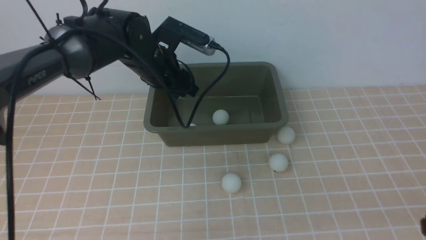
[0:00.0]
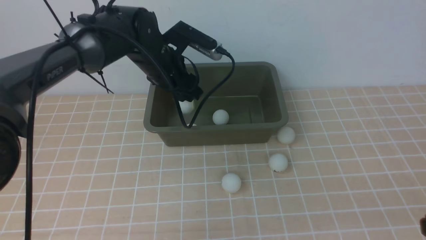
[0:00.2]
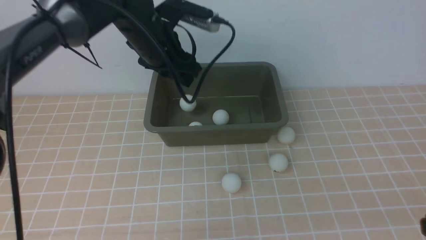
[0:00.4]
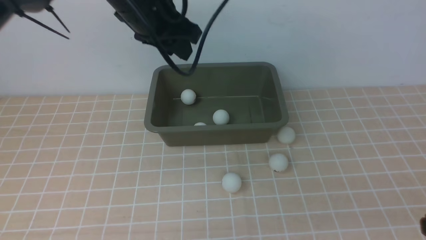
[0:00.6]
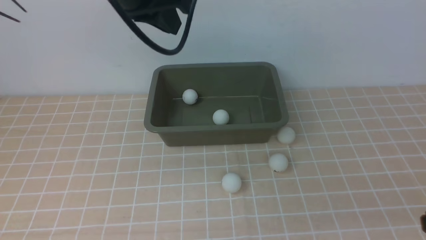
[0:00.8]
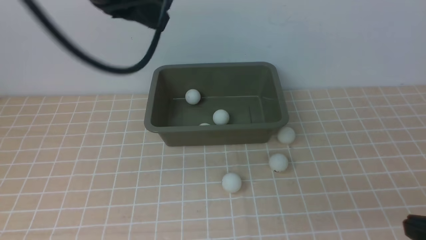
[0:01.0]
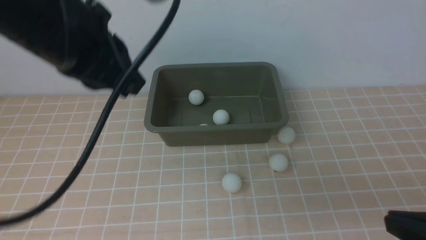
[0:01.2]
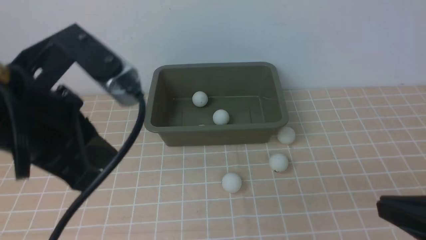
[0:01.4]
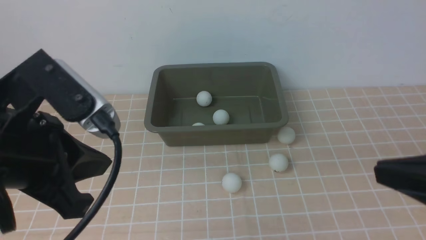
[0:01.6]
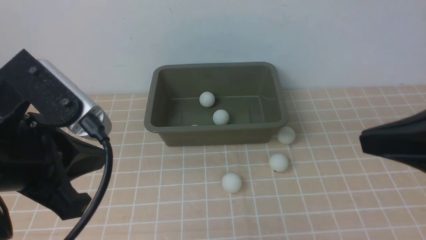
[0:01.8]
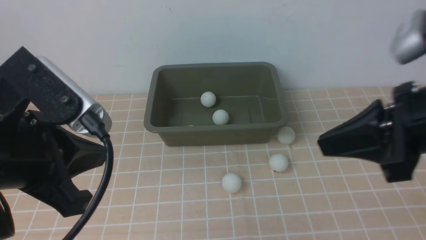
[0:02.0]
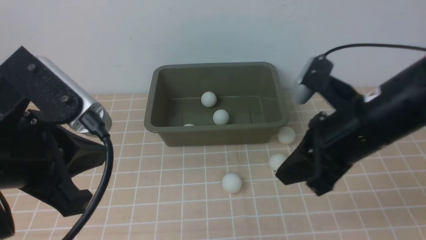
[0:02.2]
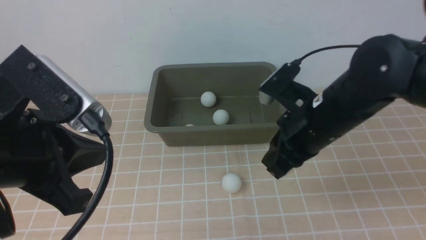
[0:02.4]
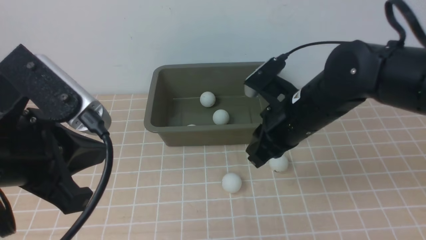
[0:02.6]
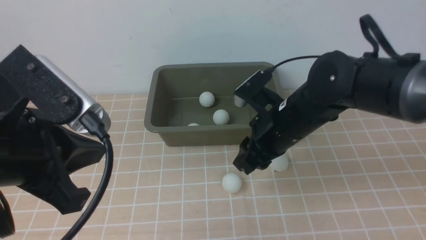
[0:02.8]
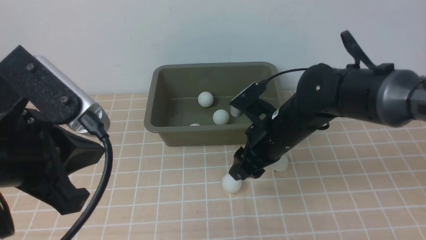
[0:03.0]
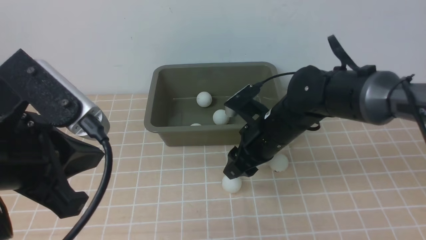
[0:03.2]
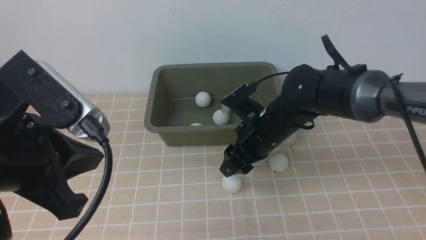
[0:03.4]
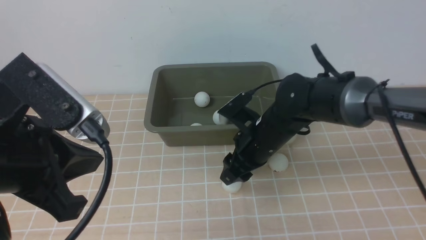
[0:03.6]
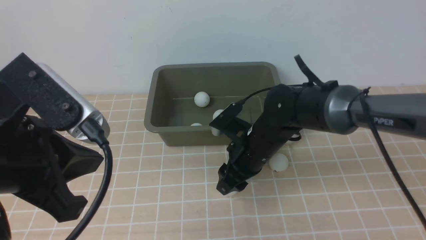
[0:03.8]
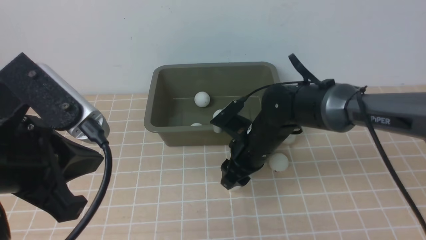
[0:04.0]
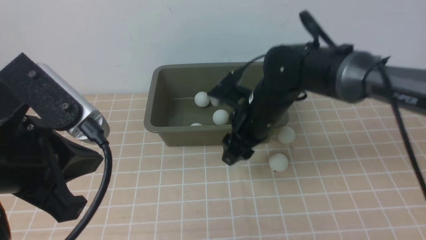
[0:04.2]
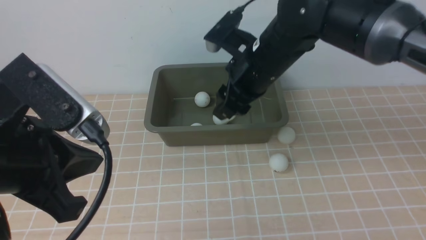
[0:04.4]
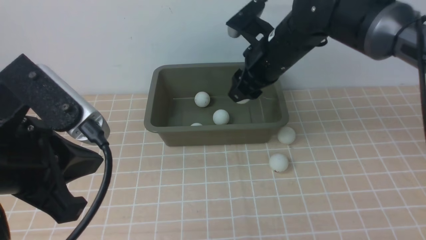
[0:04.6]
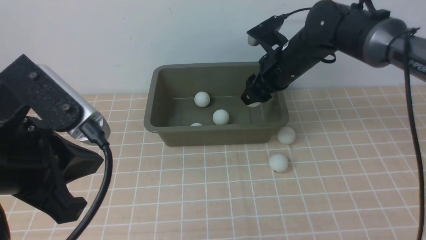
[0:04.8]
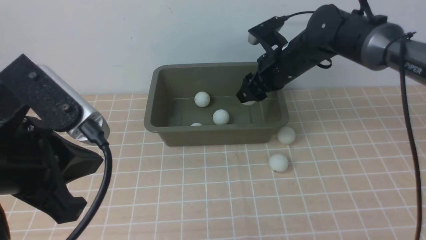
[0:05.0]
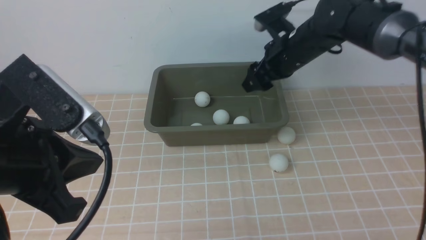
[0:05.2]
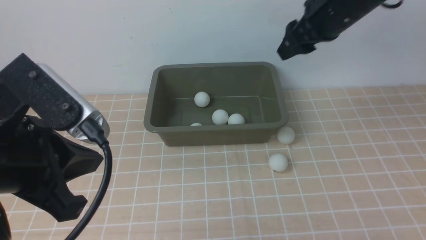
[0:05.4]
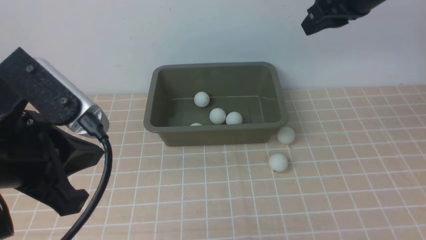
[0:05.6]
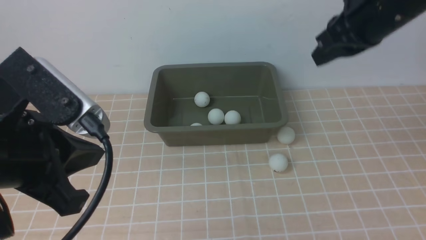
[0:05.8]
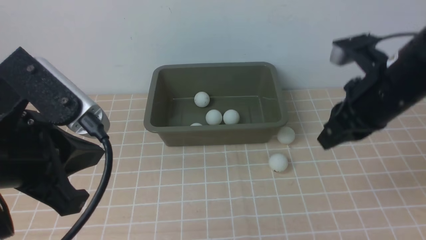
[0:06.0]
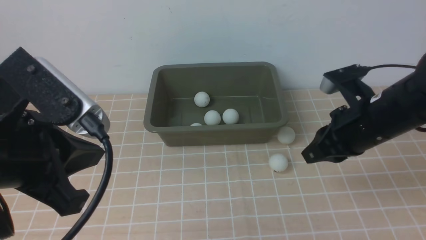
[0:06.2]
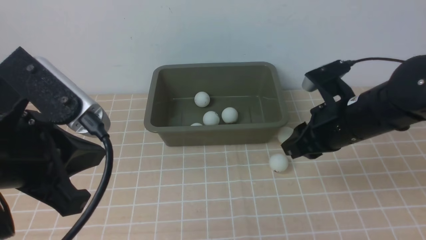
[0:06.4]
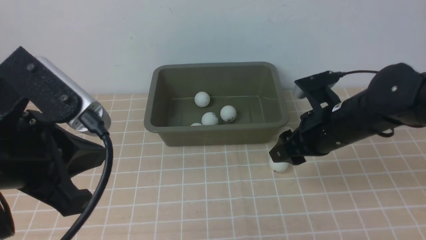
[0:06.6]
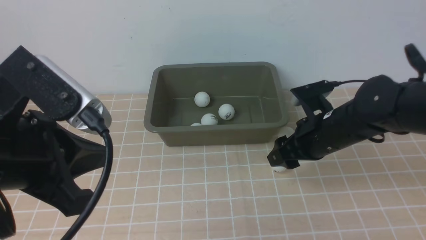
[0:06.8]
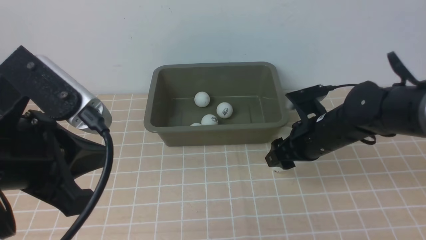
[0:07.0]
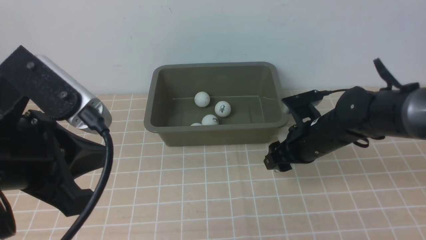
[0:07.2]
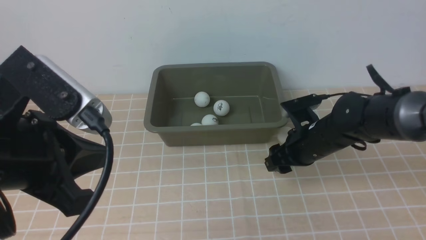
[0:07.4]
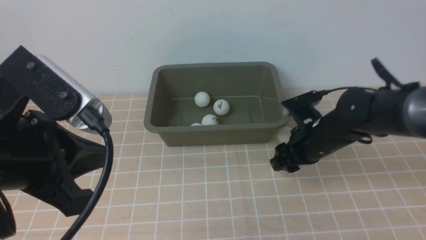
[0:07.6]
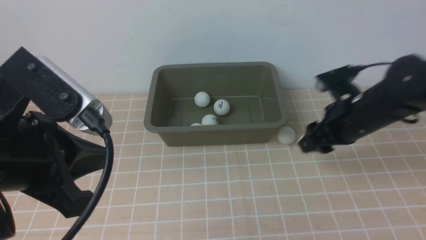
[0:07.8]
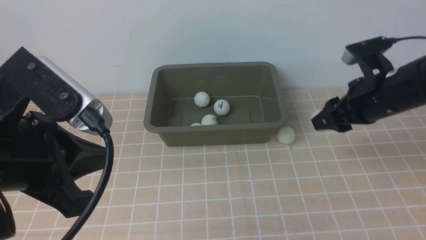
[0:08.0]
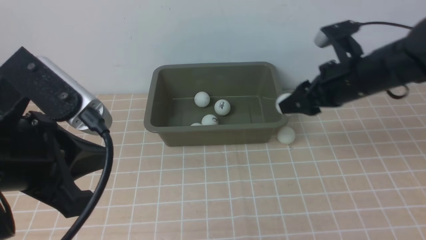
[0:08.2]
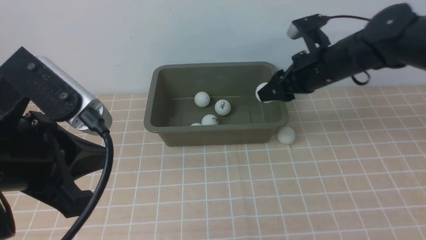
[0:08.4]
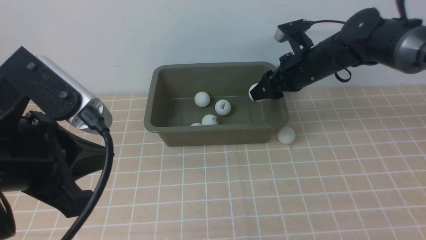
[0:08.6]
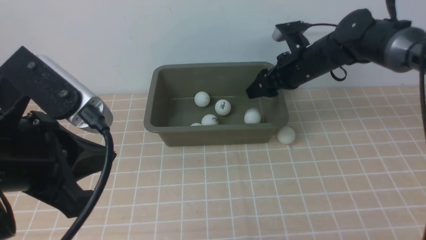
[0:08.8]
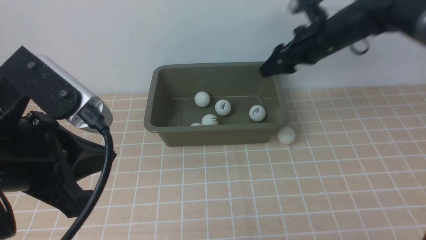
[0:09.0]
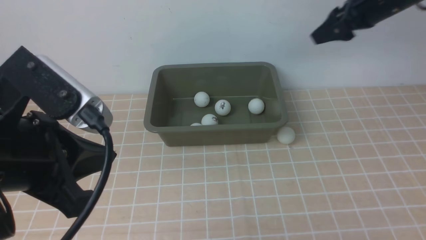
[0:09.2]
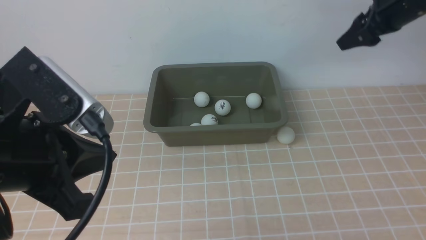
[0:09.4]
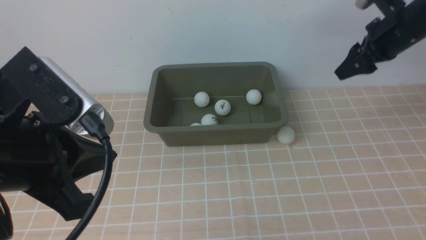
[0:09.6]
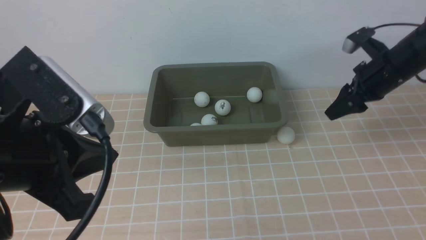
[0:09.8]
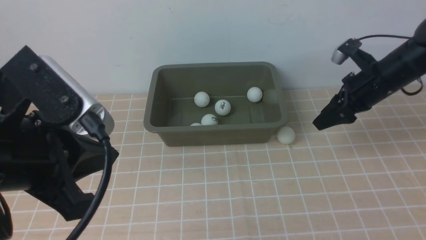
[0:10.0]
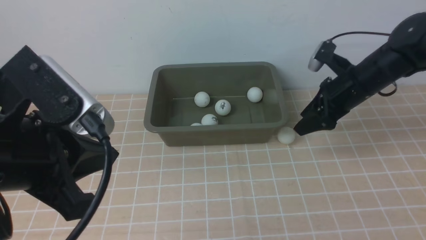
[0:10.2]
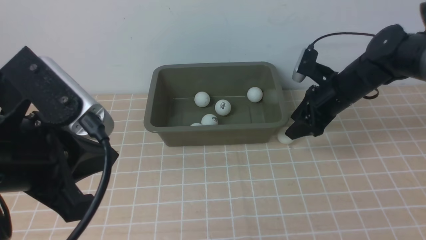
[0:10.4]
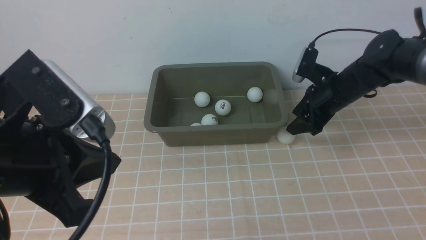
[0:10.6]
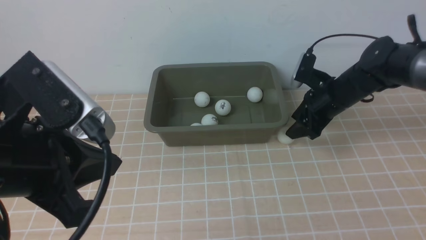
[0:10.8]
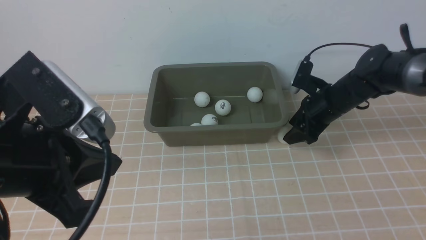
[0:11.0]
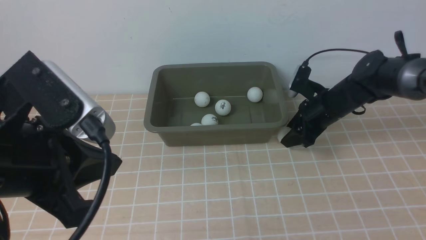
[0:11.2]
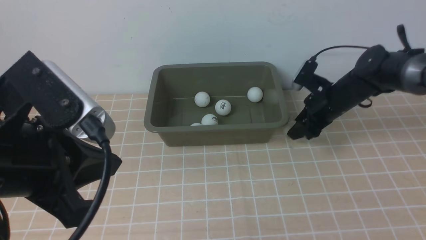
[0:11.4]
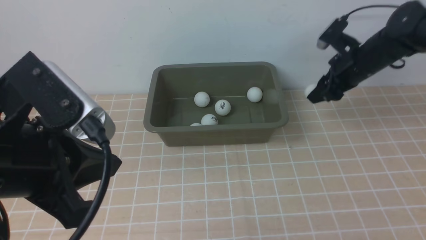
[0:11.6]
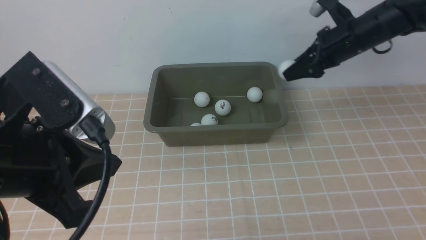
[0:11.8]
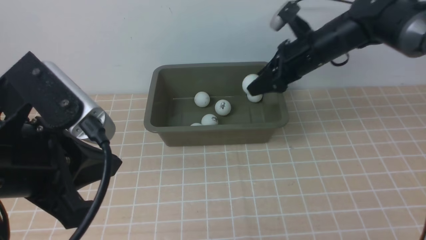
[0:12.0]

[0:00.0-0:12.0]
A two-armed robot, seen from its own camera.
Step, 0:00.0 to 0:00.6: use the left arm to put the table tennis ball into the box.
Step, 0:00.8 to 0:04.2: use the left arm to clamp the table tennis ball closest to it.
0:00.0 to 0:01.6: The left gripper is displaced backward by approximately 25 cm, and closes up; the right gripper goes about 10 cm forward and upward.
0:01.6 to 0:03.0: The right gripper goes roughly 30 cm forward, to the left and downward, and opens.
0:03.0 to 0:04.4: The right gripper goes some 10 cm upward and forward.
0:04.4 to 0:06.0: The right gripper moves to the right and backward, roughly 15 cm, and closes its fingers.
0:06.0 to 0:07.6: The right gripper shifts about 15 cm downward, and opens up.
0:07.6 to 0:09.0: The right gripper moves upward and forward, about 15 cm.
0:09.0 to 0:10.4: The right gripper goes about 10 cm downward.
0:10.4 to 0:12.0: The right gripper moves to the left and upward, some 5 cm.

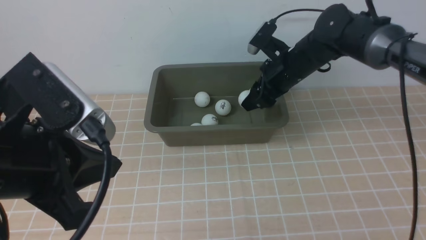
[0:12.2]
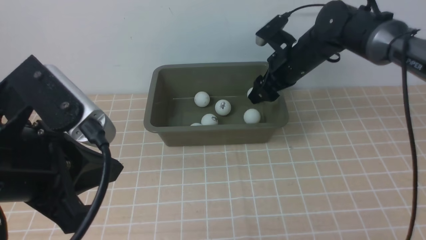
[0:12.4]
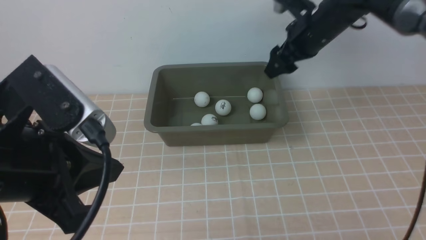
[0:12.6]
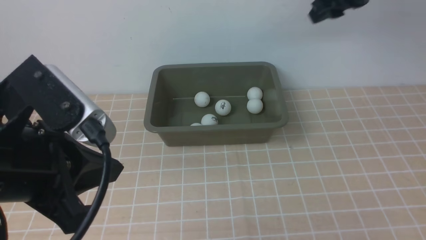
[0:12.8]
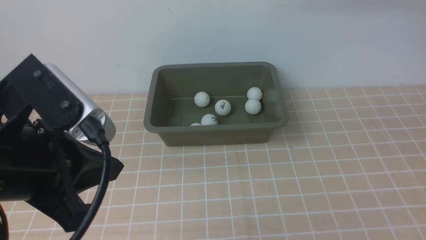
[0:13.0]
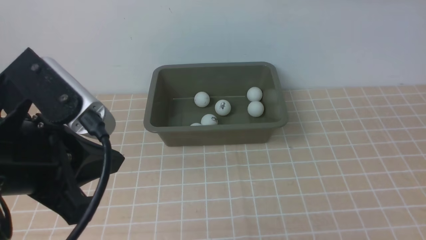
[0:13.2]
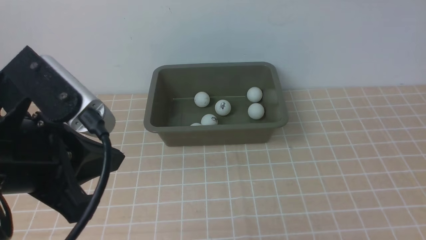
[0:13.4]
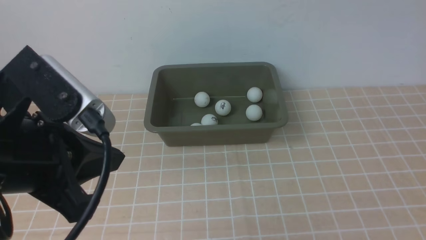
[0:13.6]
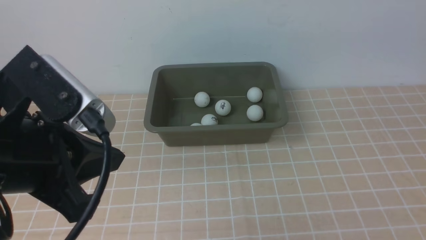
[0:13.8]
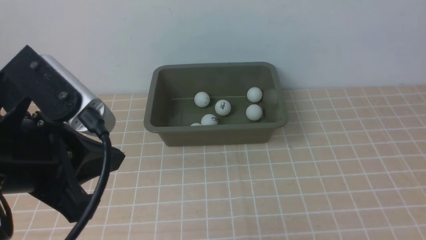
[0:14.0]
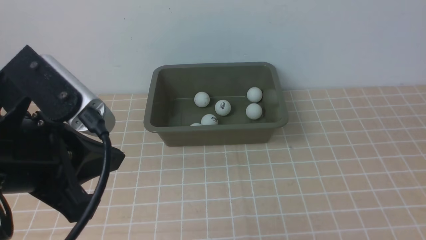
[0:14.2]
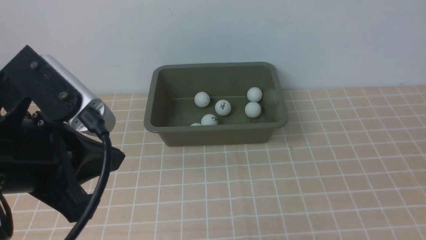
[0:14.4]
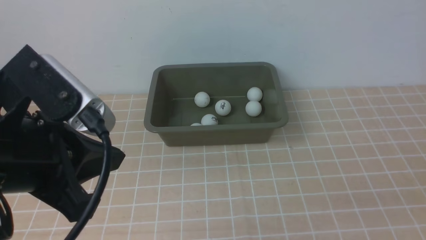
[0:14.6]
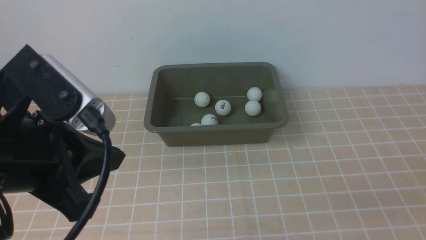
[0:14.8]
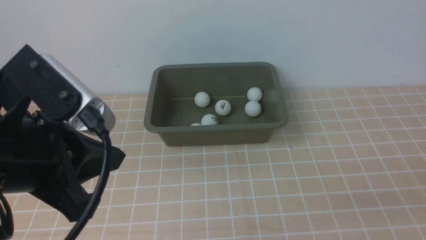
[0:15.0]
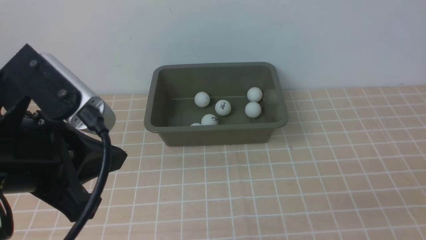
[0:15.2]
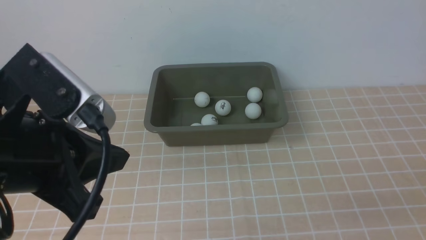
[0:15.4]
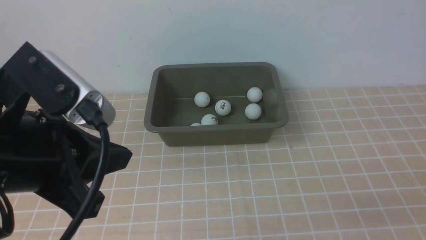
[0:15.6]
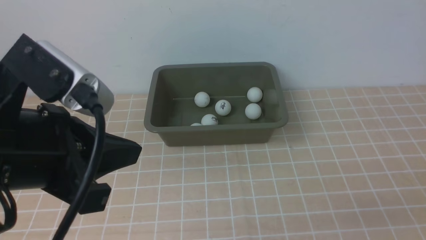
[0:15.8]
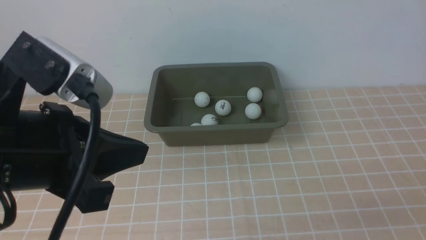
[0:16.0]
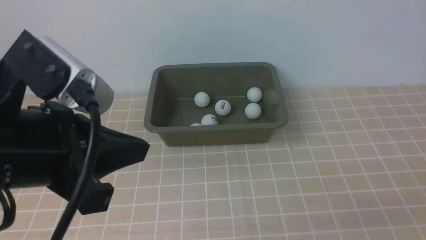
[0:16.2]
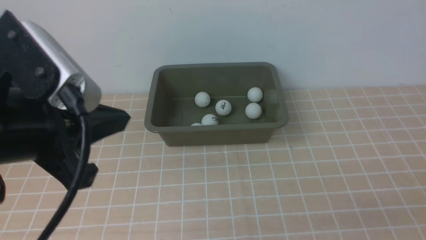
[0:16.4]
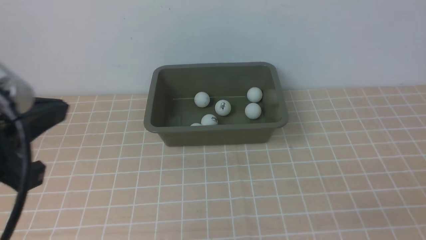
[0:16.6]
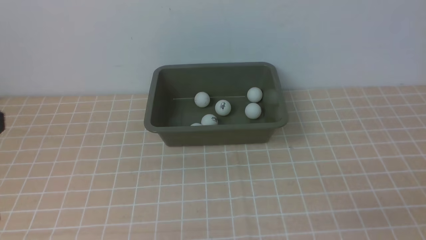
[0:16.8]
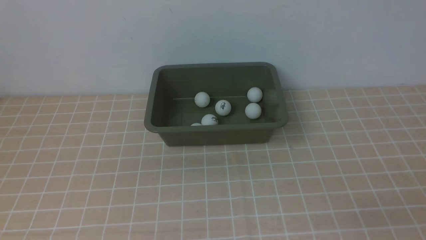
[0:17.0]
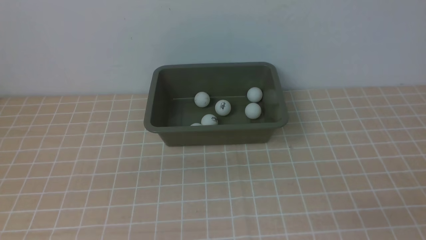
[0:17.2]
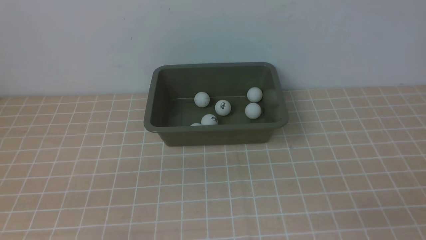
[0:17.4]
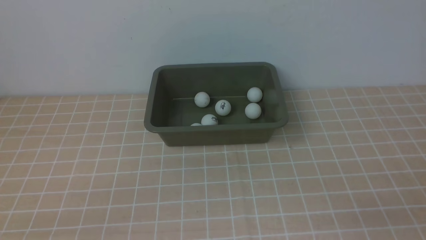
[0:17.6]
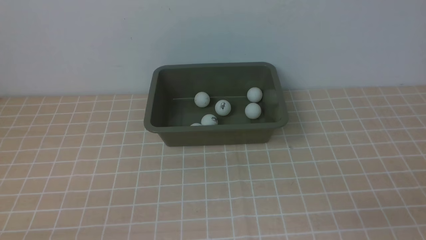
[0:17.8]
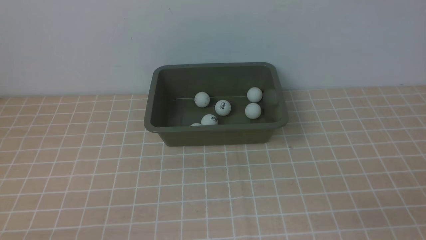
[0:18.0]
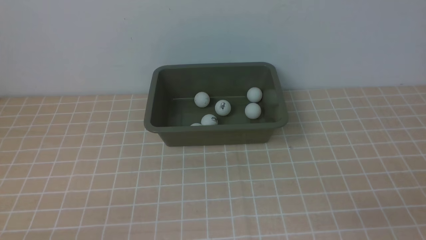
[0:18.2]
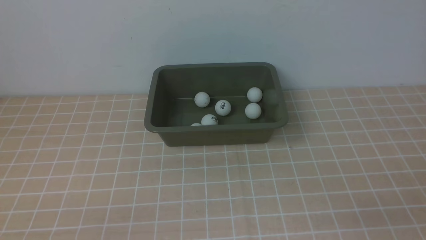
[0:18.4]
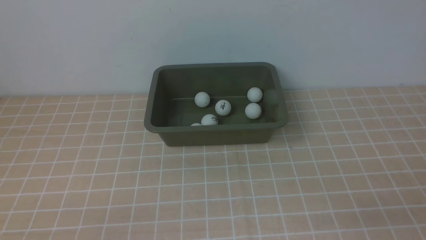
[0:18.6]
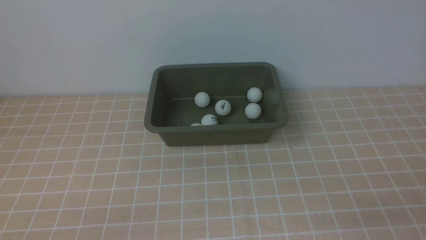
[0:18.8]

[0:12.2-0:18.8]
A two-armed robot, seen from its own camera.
0:12.2 to 0:13.8: The right gripper goes some 40 cm backward, upward and to the right, and closes.
0:15.4 to 0:17.2: The left gripper heads backward, downward and to the left, covering about 15 cm.
